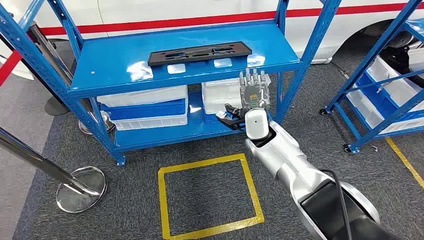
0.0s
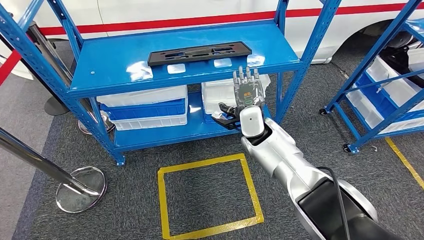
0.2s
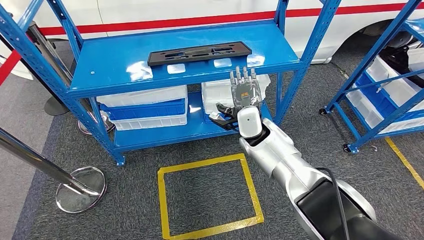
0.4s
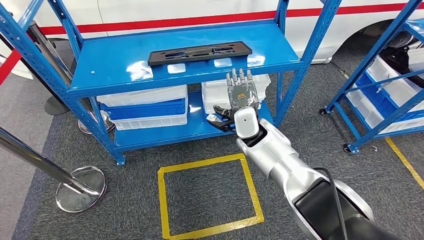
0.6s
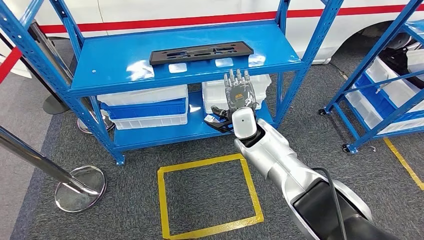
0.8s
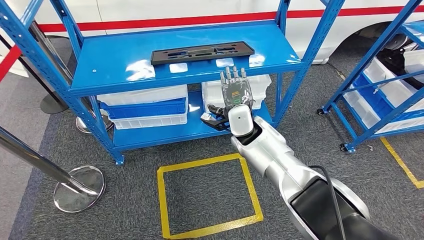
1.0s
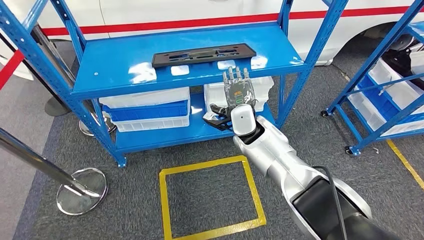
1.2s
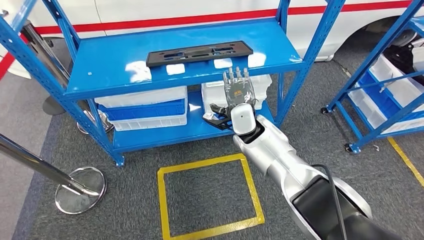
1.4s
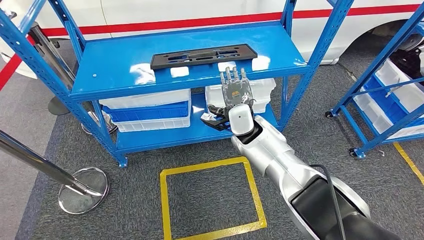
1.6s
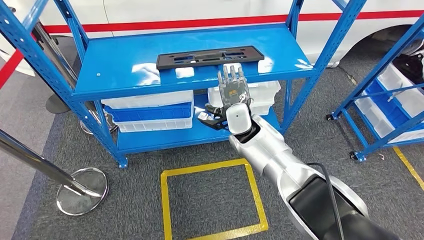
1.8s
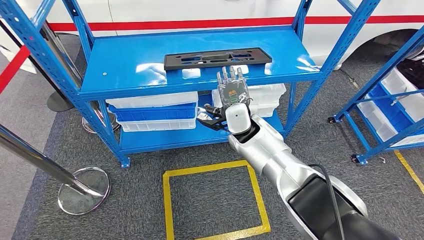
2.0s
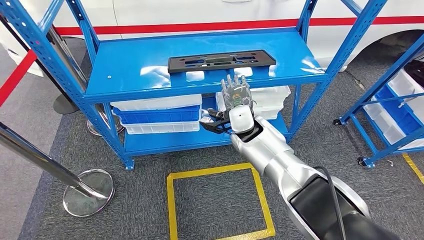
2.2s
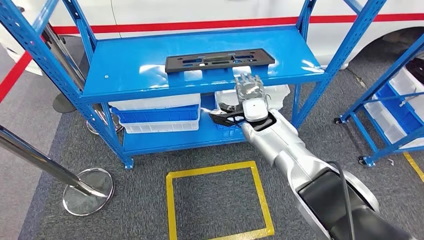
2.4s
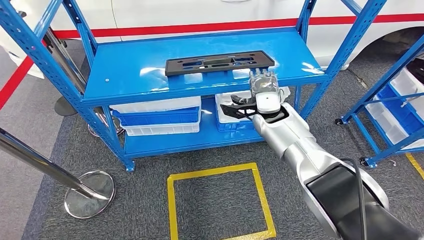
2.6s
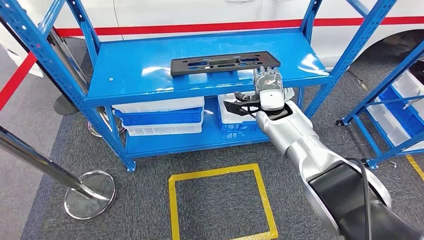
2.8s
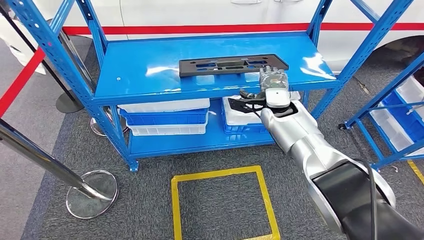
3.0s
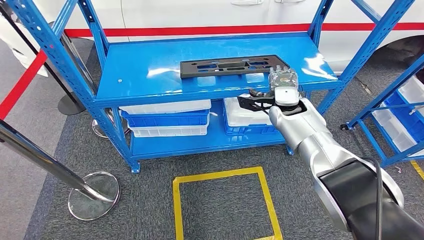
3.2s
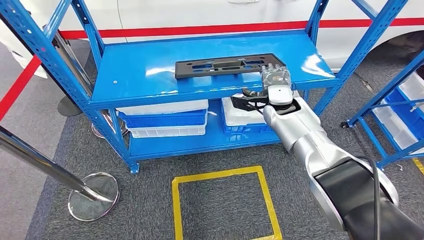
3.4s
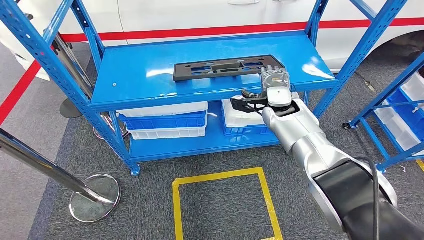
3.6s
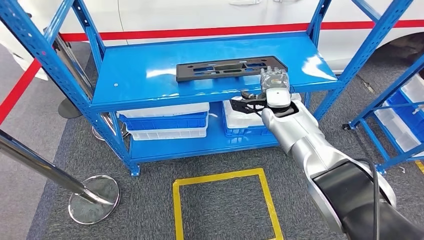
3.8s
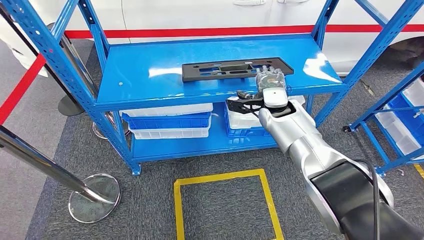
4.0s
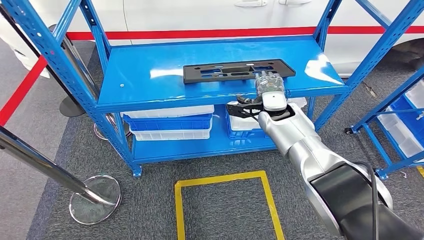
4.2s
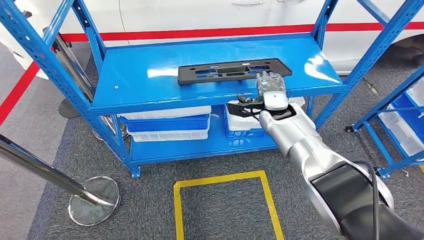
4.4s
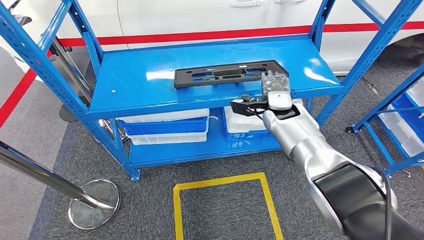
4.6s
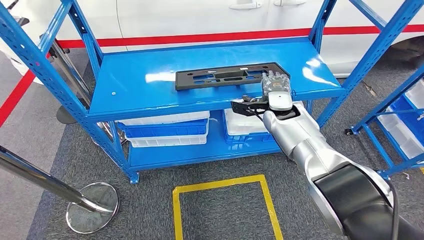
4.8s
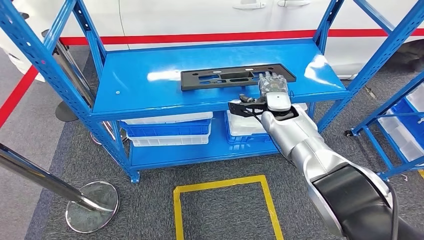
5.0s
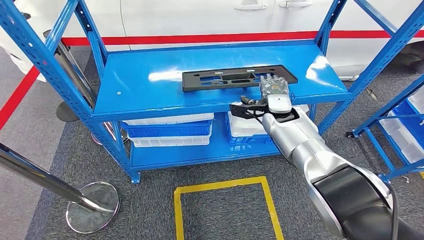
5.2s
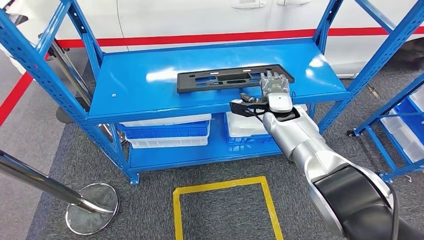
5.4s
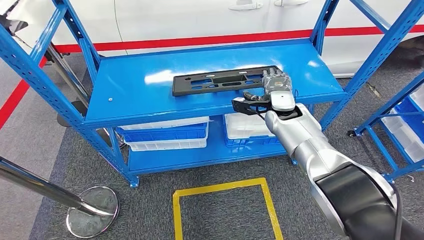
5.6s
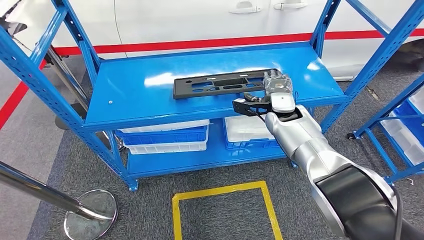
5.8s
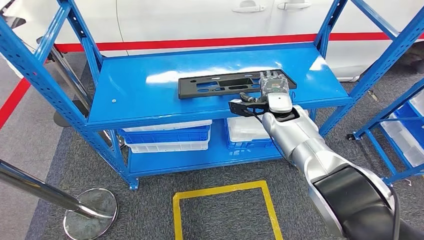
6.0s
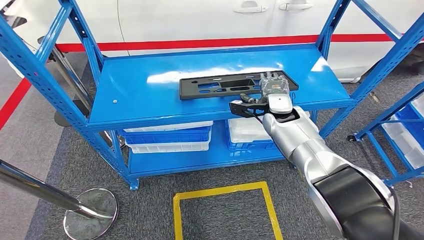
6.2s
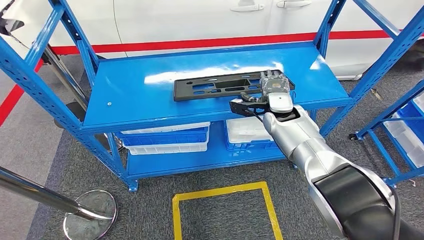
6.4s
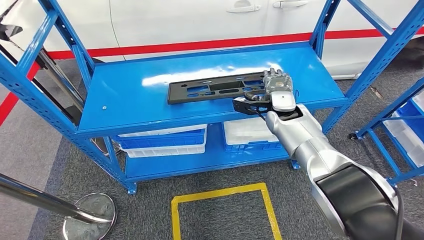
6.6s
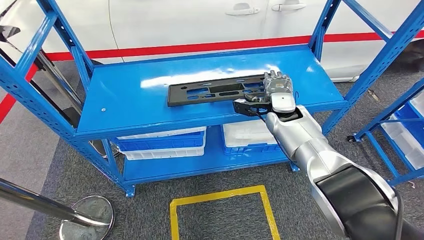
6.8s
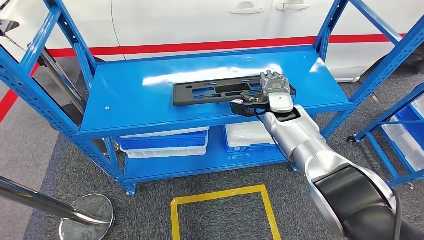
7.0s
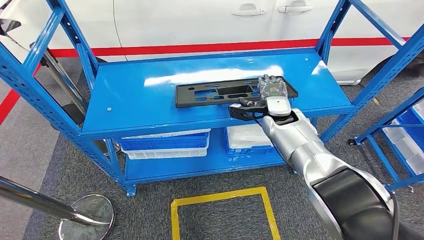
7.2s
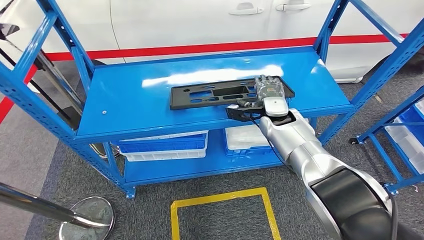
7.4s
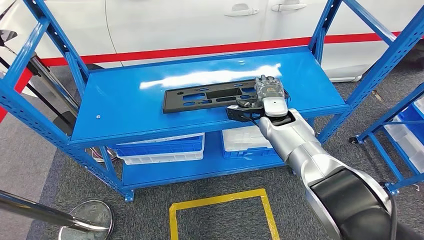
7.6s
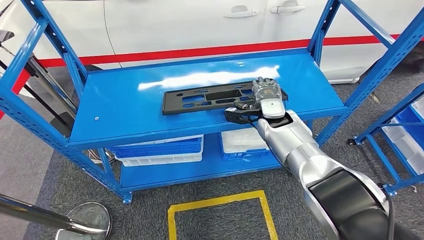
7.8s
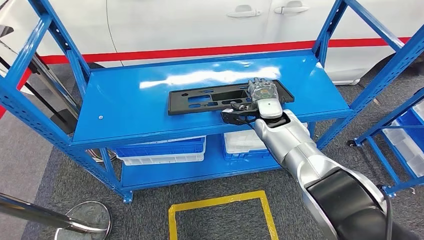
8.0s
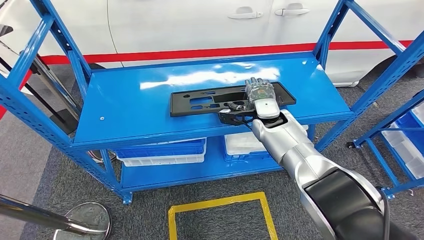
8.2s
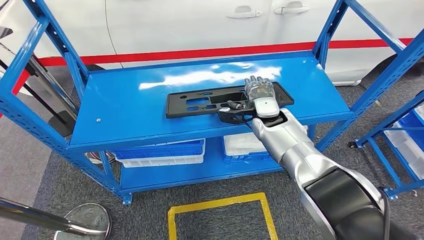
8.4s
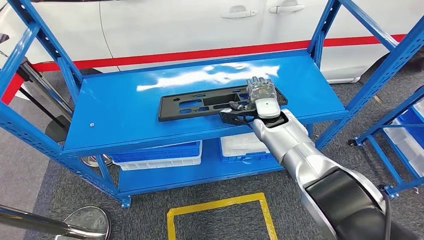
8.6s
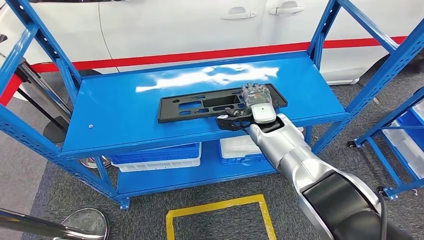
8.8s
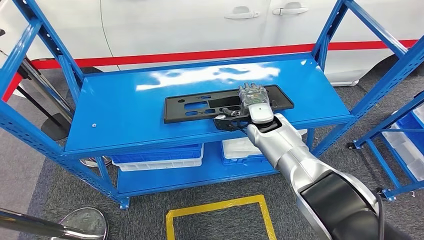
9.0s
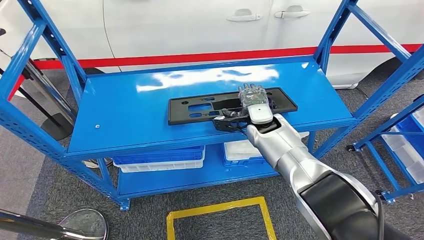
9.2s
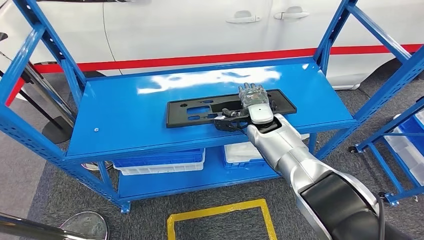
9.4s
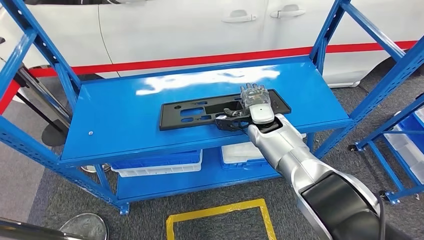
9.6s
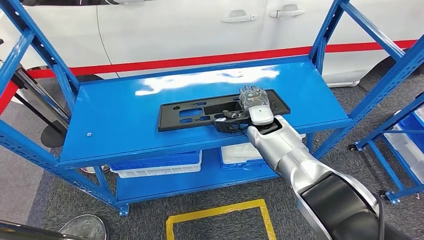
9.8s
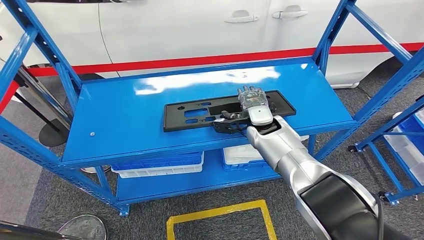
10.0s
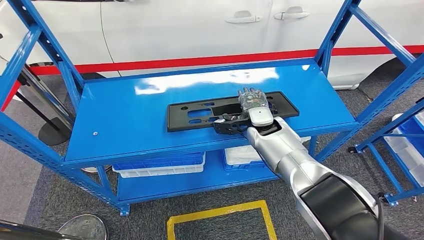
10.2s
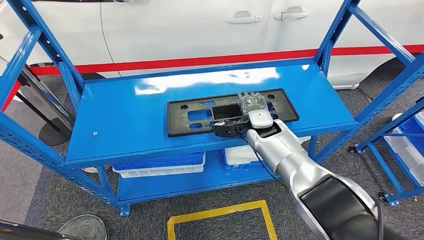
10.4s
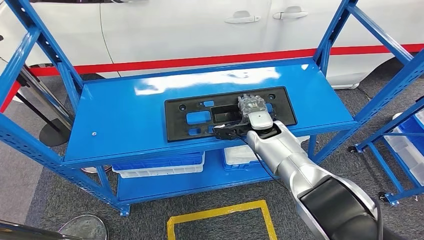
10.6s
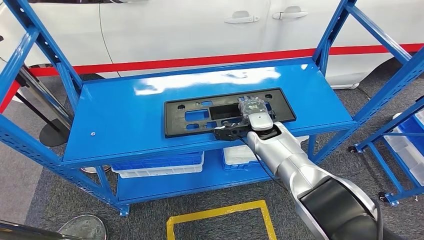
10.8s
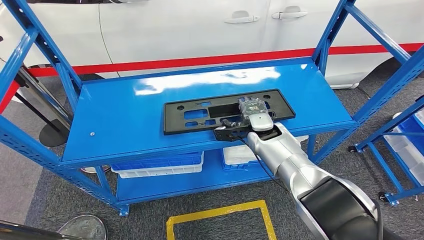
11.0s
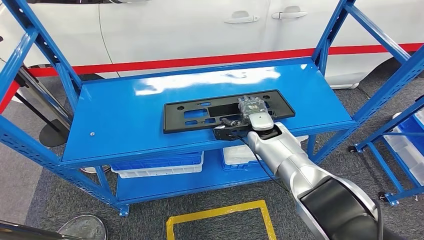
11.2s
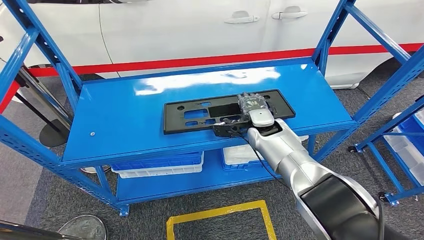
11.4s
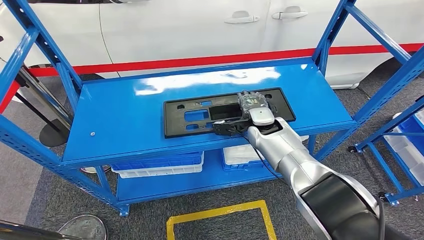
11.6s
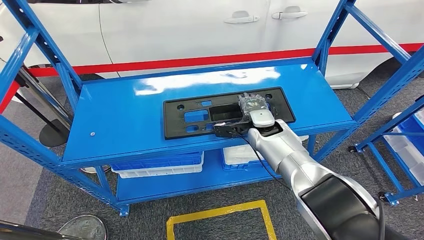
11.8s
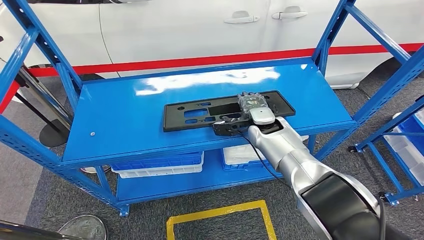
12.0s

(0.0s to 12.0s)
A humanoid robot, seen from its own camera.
10.4s - 12.0s: Both hands stay about where they are.

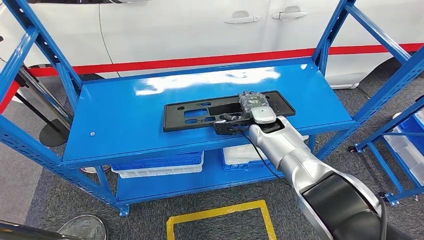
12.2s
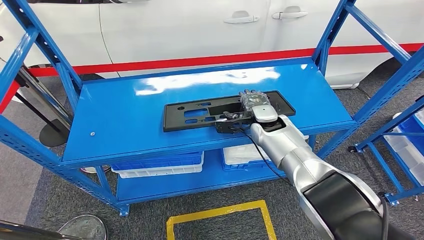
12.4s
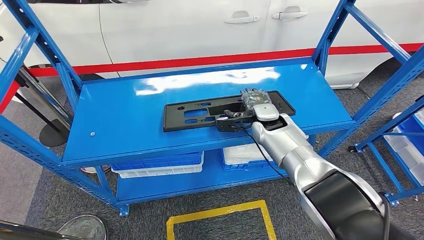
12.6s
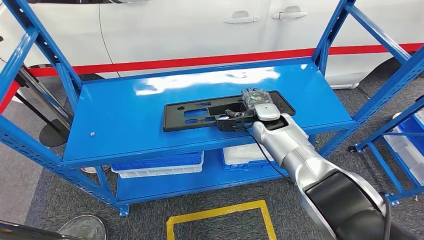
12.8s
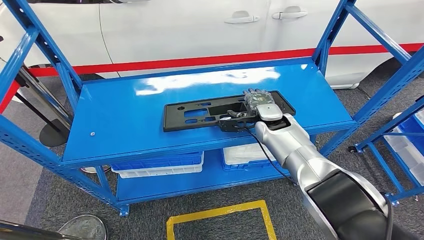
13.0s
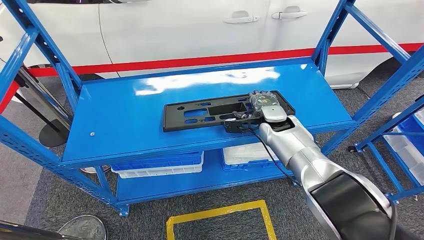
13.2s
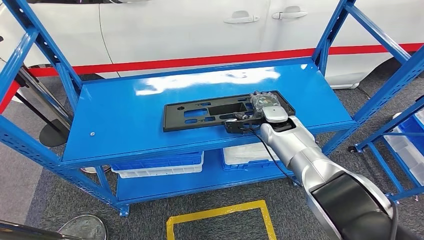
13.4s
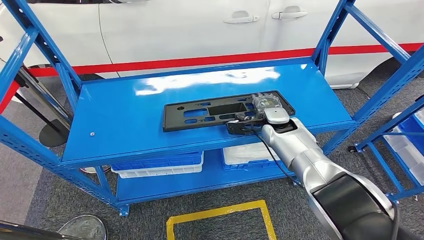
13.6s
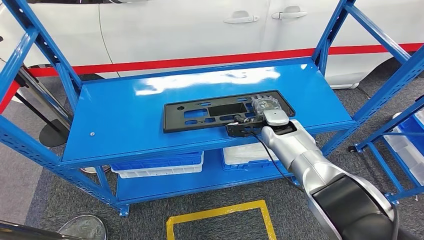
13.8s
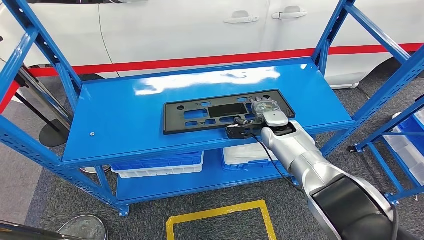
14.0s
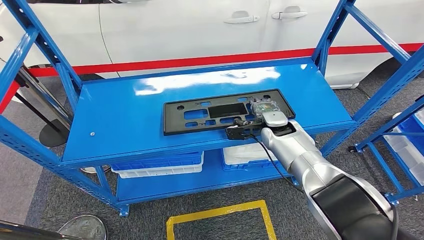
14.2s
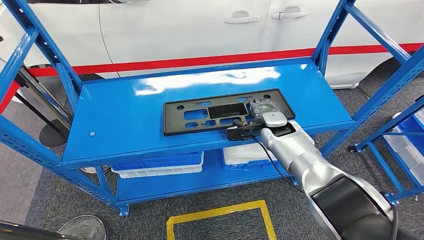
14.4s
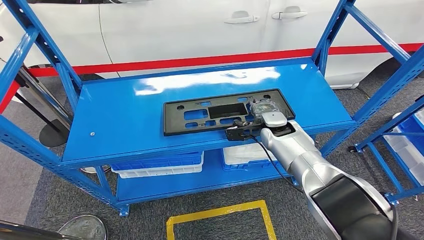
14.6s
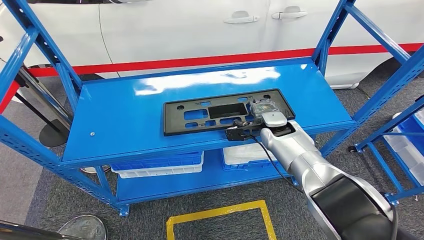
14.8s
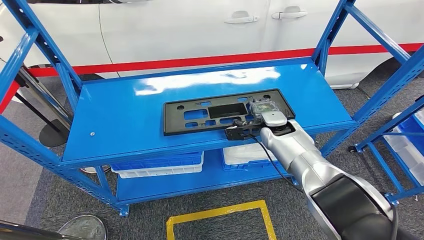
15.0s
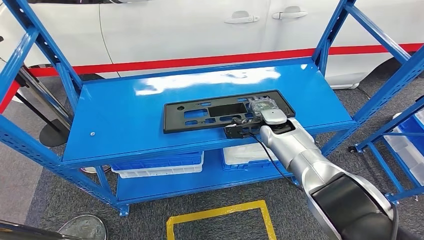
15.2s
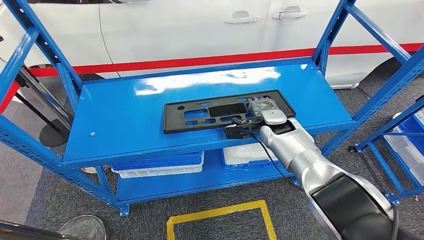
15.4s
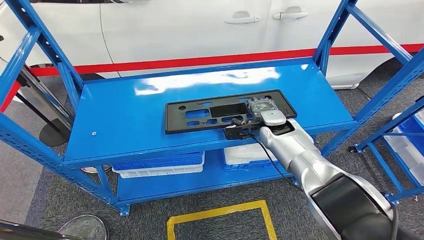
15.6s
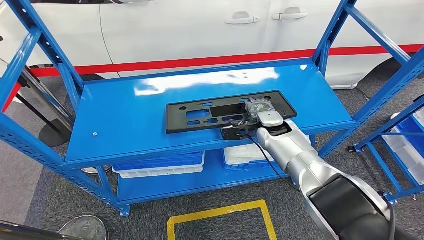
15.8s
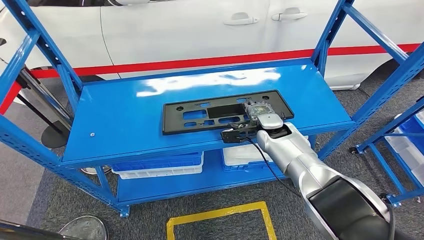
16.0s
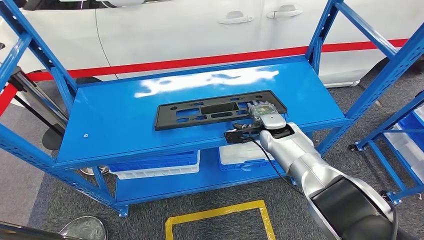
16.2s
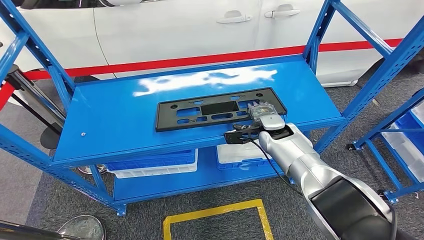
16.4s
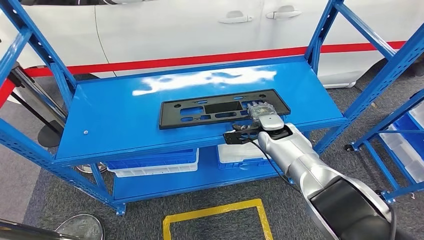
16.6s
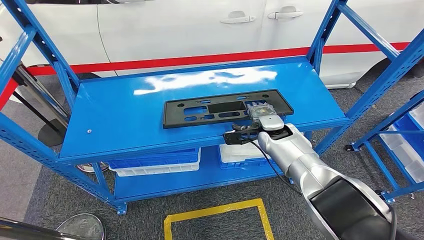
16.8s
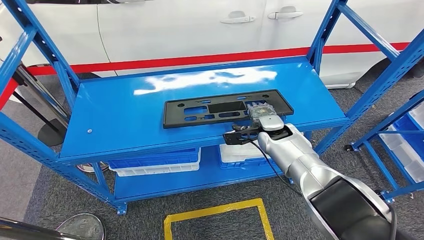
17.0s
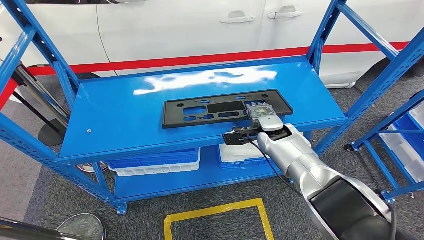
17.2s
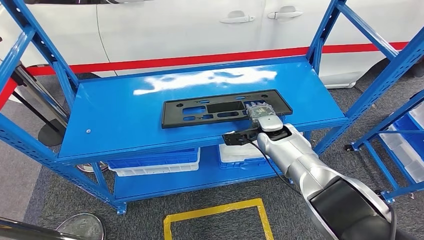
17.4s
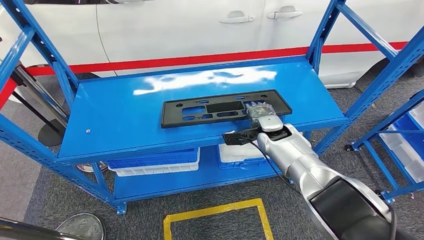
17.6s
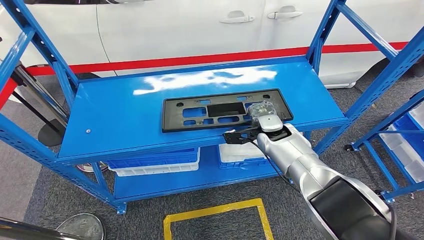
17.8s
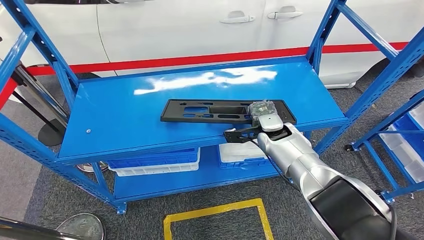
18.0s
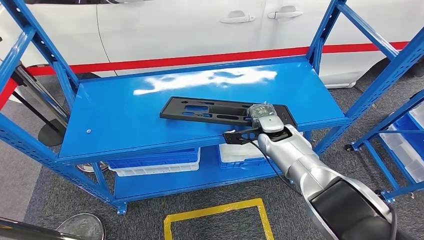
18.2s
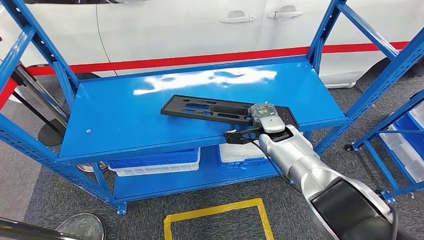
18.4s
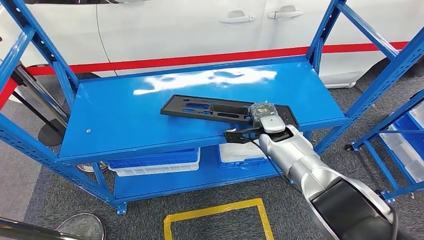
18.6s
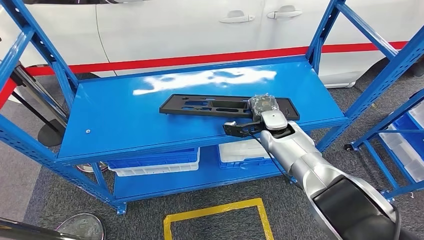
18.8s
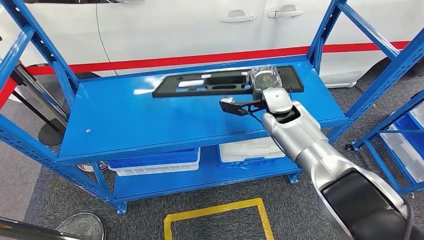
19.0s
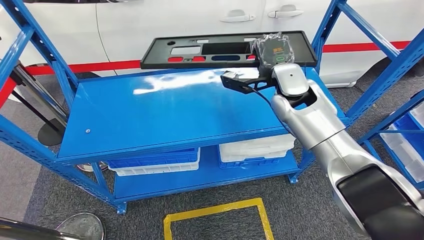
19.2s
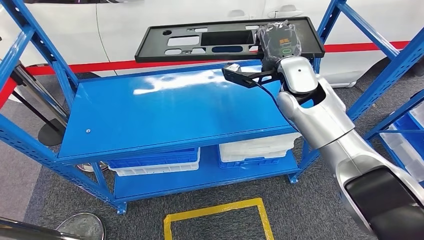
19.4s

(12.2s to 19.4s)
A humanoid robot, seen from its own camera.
12.2s - 13.6s: The hands move only a little.
13.6s - 15.0s: Both hands stay put.
16.6s - 18.0s: Both hands stay about where they are.
